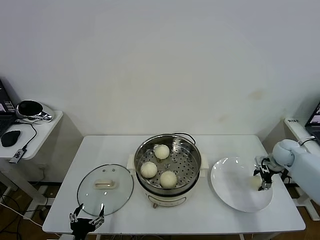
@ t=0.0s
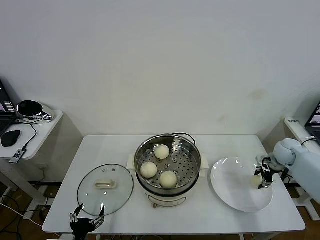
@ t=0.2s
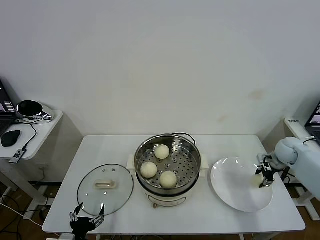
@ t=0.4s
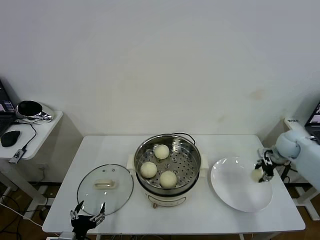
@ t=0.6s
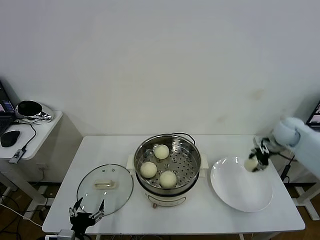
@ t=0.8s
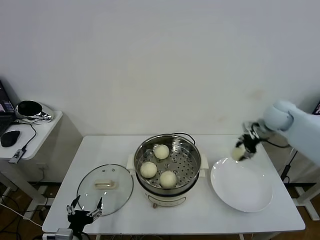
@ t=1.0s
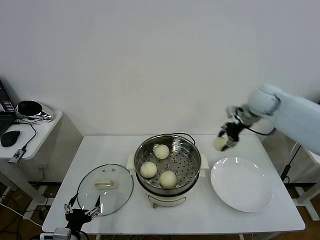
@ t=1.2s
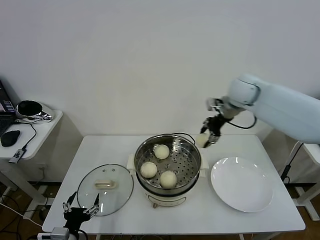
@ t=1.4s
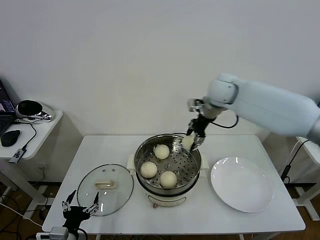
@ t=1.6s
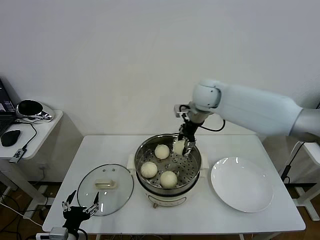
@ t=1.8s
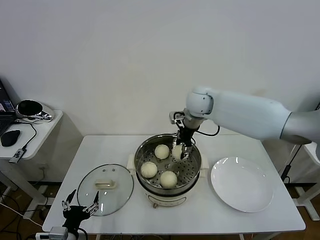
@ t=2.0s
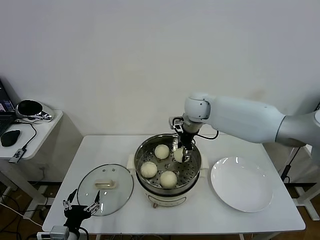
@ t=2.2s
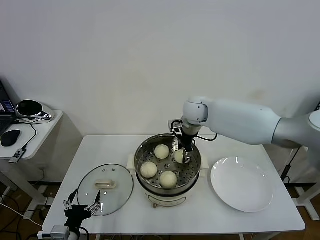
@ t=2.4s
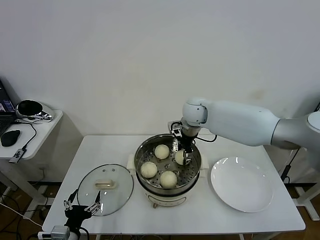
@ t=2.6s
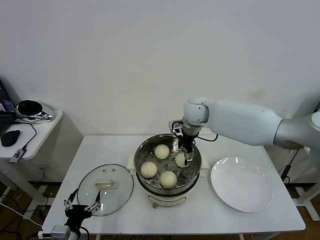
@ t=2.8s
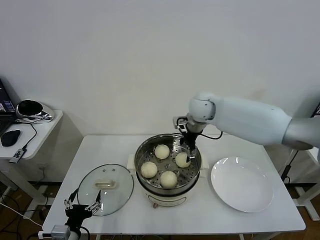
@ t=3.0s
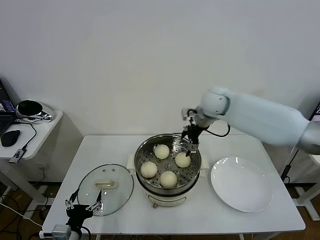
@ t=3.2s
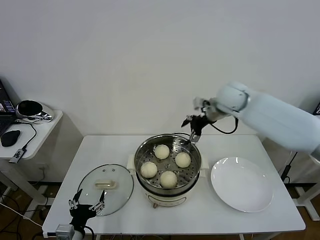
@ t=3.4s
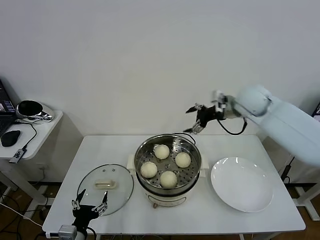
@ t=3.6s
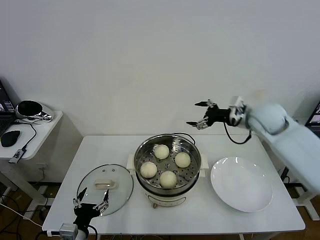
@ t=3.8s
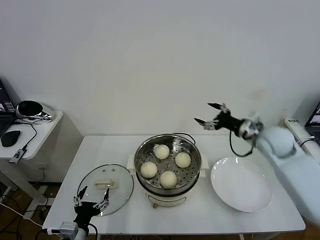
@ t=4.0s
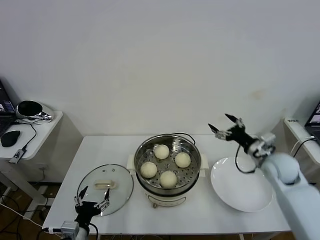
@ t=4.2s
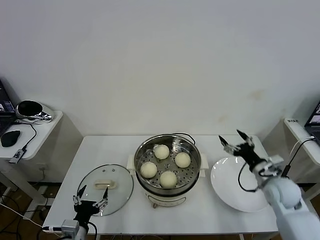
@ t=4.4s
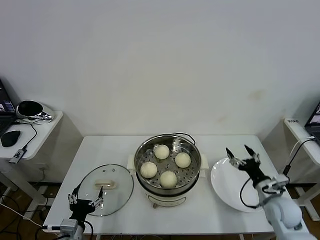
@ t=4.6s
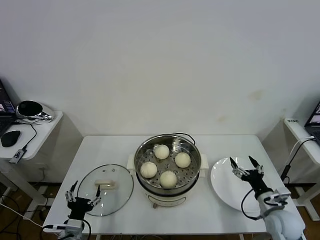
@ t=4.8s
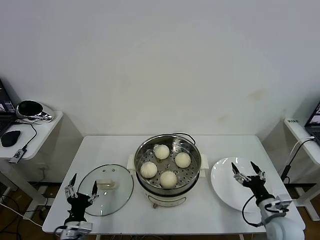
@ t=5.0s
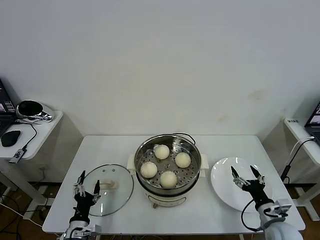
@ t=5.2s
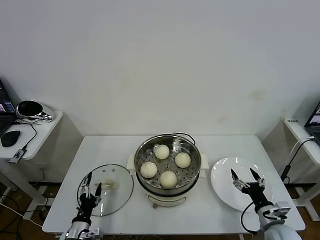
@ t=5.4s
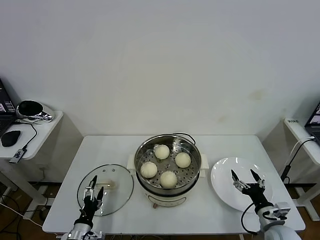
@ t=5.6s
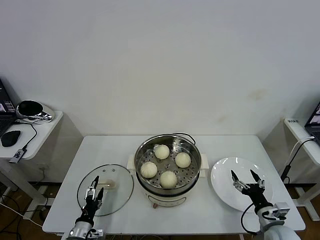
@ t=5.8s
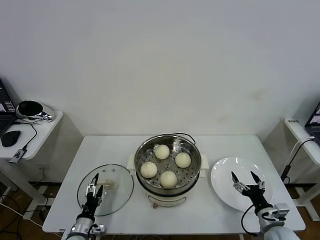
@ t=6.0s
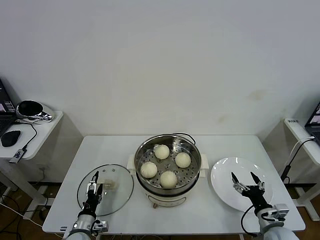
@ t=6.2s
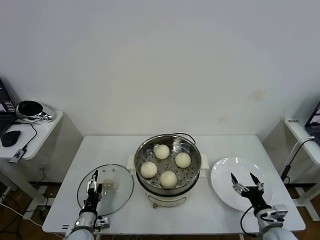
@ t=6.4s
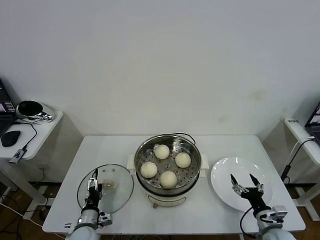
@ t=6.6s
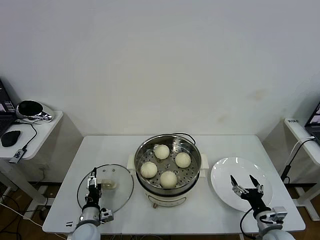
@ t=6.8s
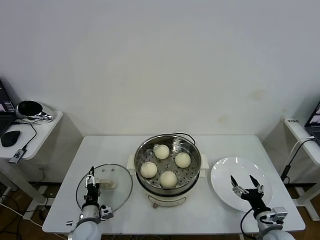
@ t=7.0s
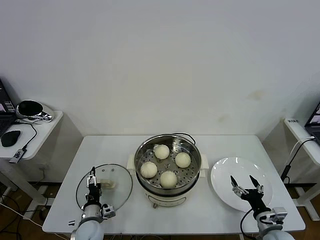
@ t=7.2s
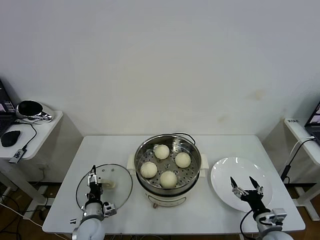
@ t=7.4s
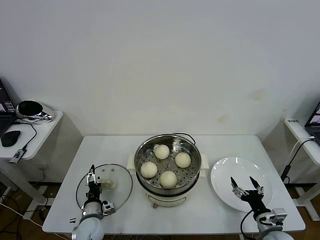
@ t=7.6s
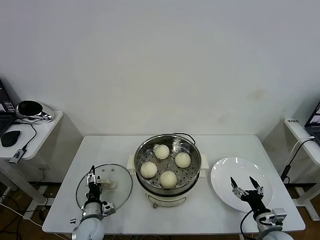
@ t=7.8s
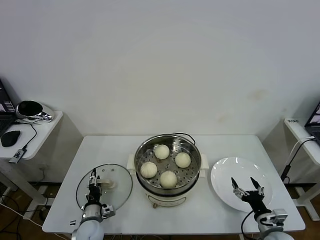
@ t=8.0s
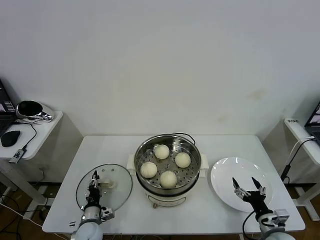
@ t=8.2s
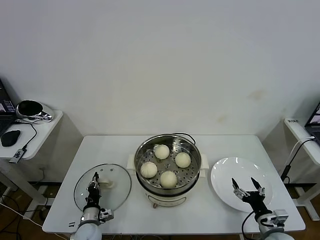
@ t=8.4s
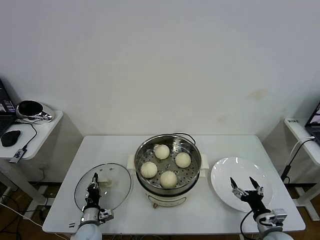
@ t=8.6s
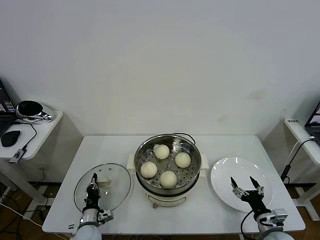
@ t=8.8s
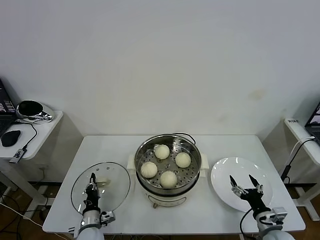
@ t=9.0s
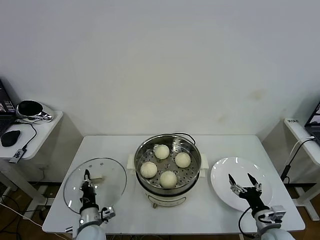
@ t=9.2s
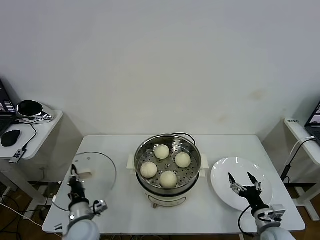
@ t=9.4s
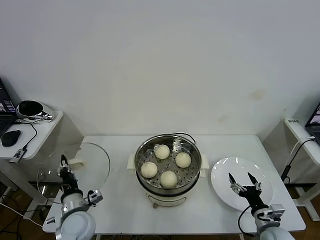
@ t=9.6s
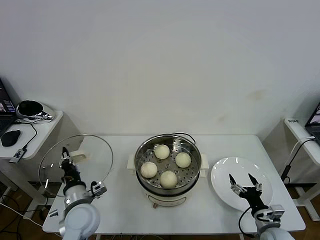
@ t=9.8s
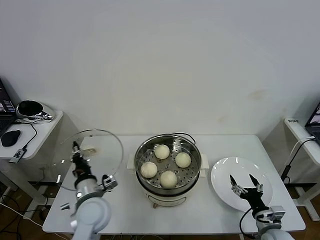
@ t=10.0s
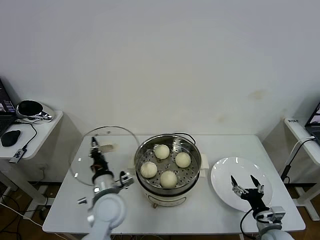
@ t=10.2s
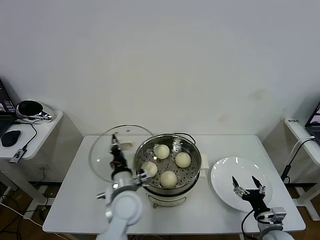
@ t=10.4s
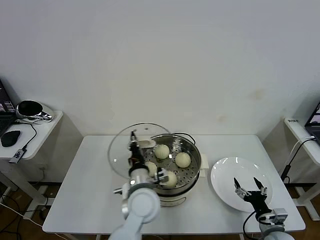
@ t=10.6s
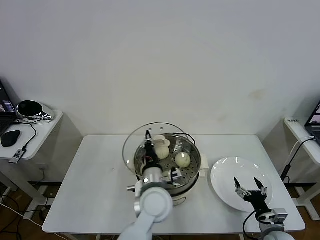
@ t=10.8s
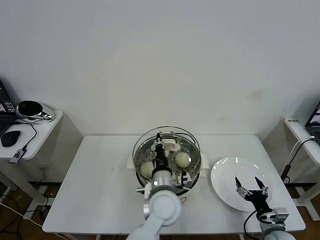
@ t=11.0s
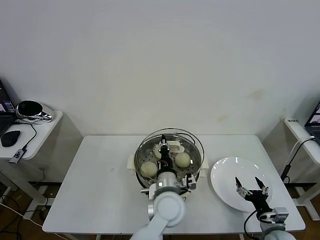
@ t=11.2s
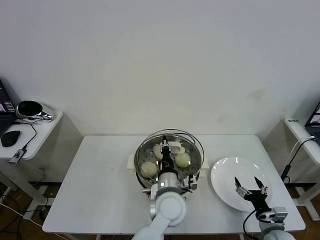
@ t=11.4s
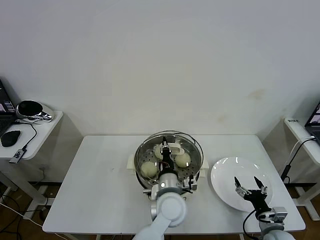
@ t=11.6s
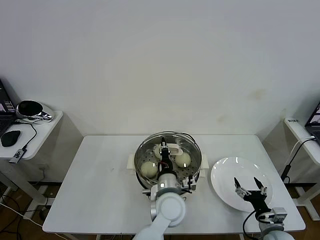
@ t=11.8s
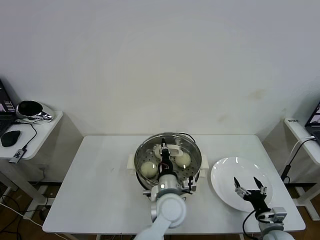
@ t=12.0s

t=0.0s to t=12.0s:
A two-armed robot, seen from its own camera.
Task of the whole recording: take steamed baozi put them in steamer then cover it.
Step, t=0.4s to t=3.0s: Place the baozi on the steamer with right gripper.
Step, t=3.2s to t=8.6s: Grasp the pot lid with left gripper.
t=0.0s to t=1.6s: The right gripper goes approximately 35 cm to the left and upward, and closes its fingers.
t=1.6s to t=3.0s: The right gripper goes approximately 5 cm downward, and opens up.
t=3.0s to t=4.4s: The right gripper shifts some 35 cm to the right, backward and downward.
t=4.4s to t=6.0s: The left gripper goes approximately 10 cm downward. Meanwhile the right gripper is displaced backward and downward by some 15 cm.
t=6.0s to t=7.6s: The left gripper heads forward, covering roughly 5 cm.
t=7.6s to t=9.0s: The left gripper closes its fingers.
t=9.0s to t=10.4s: The left gripper goes roughly 25 cm upward and to the right.
t=10.4s to t=12.0s: The left gripper heads to the right, covering approximately 15 cm.

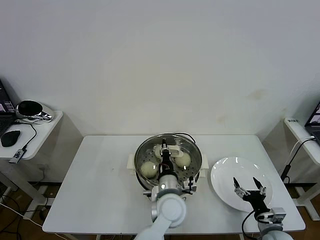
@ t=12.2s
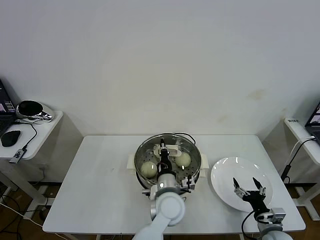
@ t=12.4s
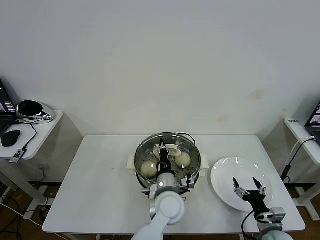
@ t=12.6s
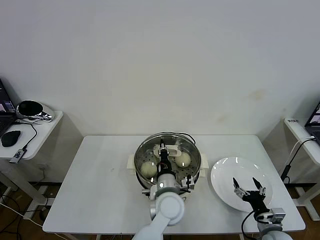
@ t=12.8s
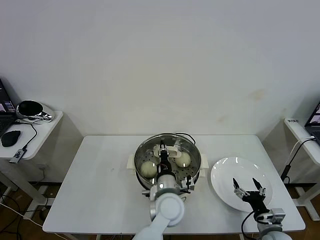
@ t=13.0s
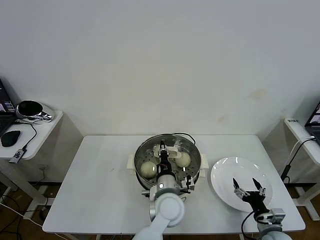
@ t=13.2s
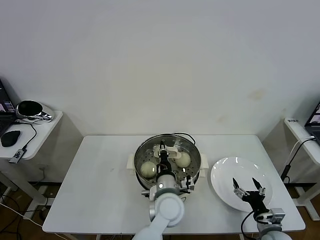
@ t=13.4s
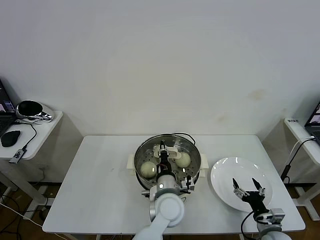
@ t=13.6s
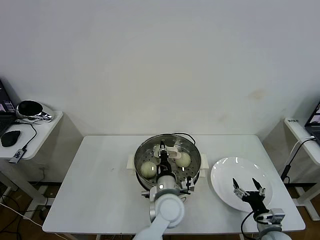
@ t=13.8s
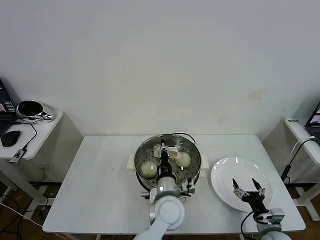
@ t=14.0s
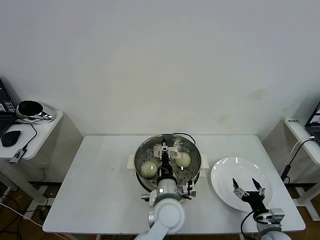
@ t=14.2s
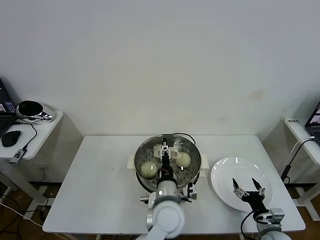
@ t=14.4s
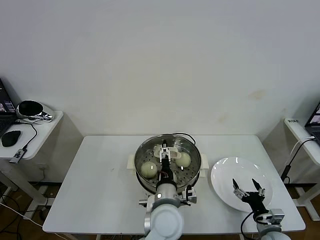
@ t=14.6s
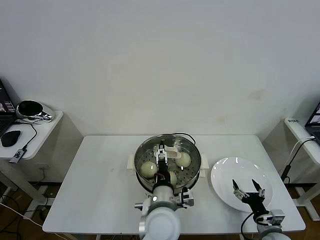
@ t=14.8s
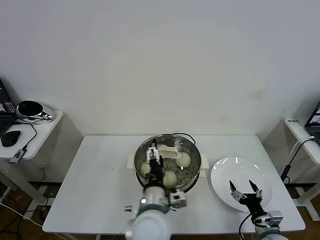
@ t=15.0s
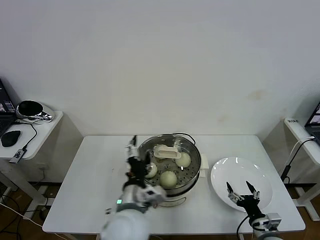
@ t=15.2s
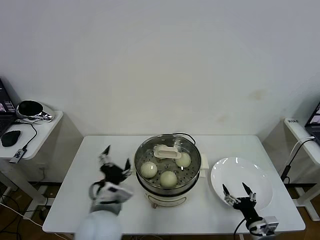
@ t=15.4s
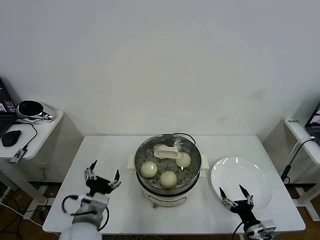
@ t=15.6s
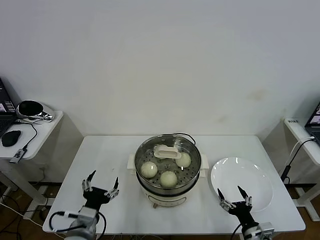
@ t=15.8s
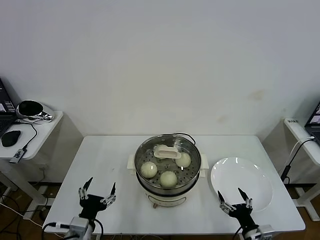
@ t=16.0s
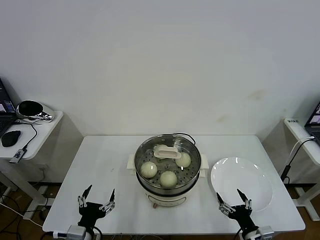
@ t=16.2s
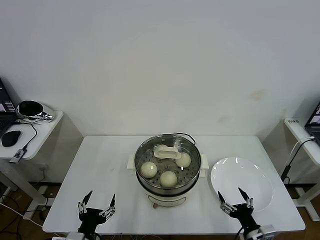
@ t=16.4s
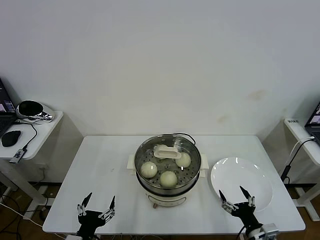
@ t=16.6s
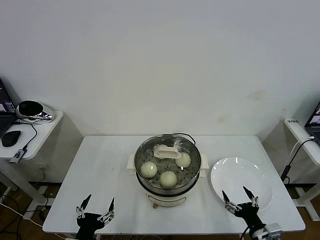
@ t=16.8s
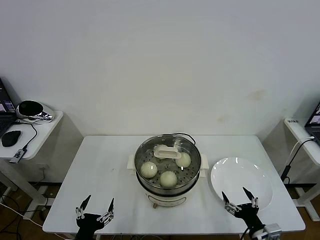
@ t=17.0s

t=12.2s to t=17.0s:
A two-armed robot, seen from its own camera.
Task of the whole recording: take steamed baozi put them in steamer then cover it.
Step, t=12.2s to t=14.8s: Place the pot lid on the steamer with left gripper.
t=12.2s to t=13.8s: Neither gripper changes place.
t=13.8s to t=15.4s: The left gripper travels to the left, upward and backward by roughly 20 cm, and opens up.
t=15.4s to t=17.0s: The left gripper is displaced to the left, downward and backward by approximately 20 cm. Meanwhile the right gripper shifts by roughly 5 cm.
